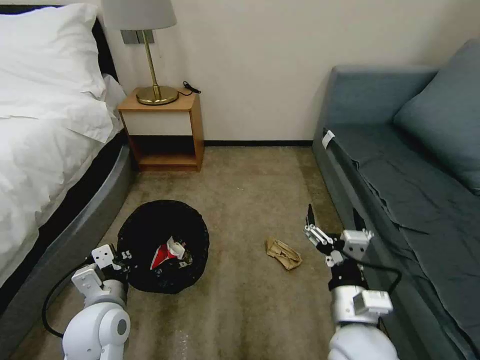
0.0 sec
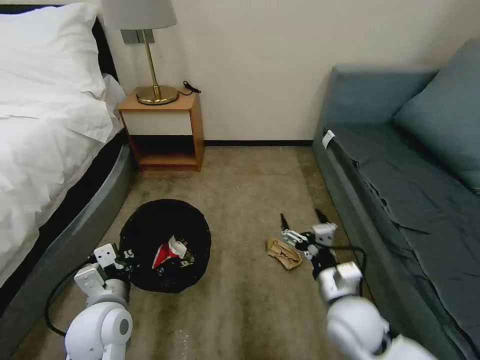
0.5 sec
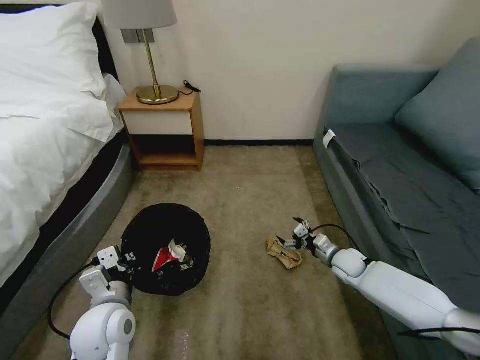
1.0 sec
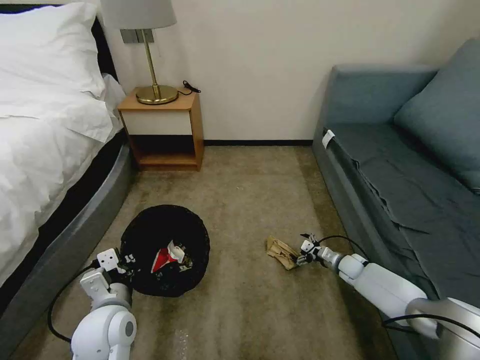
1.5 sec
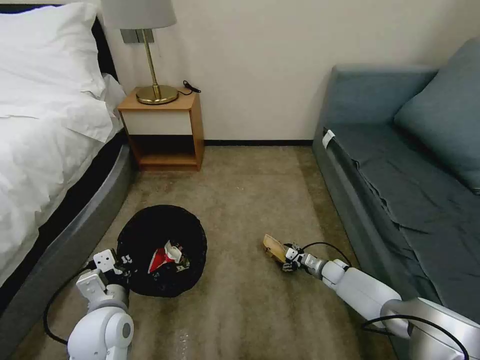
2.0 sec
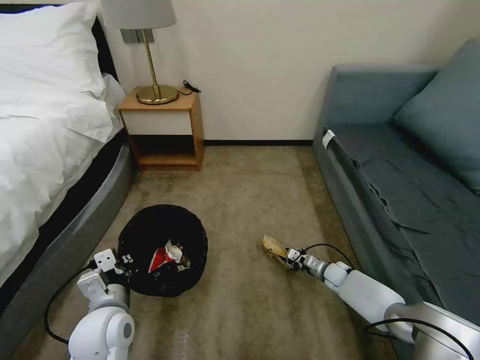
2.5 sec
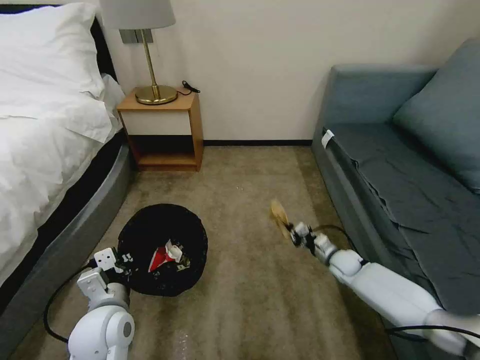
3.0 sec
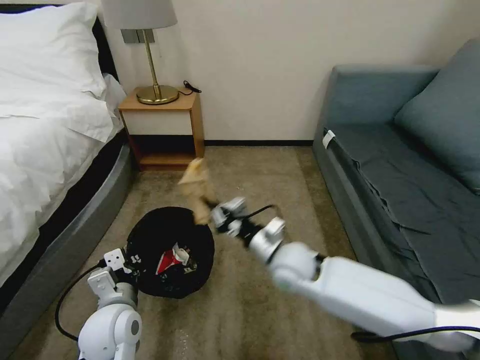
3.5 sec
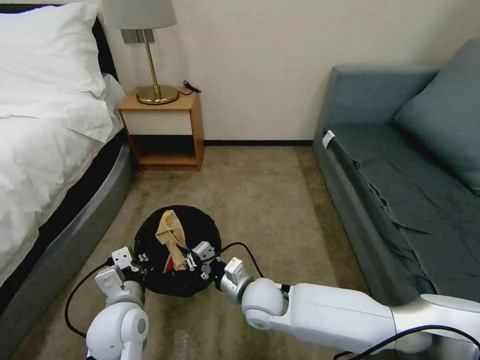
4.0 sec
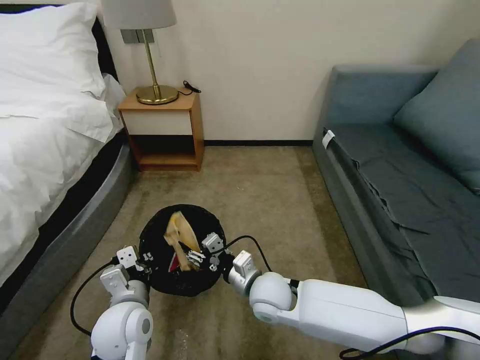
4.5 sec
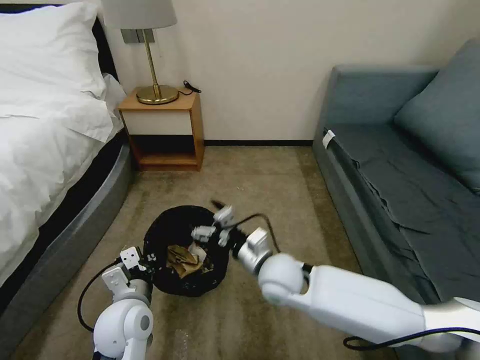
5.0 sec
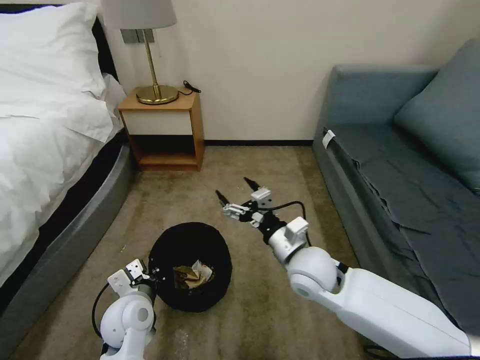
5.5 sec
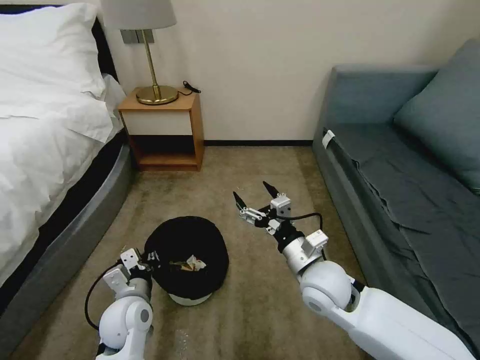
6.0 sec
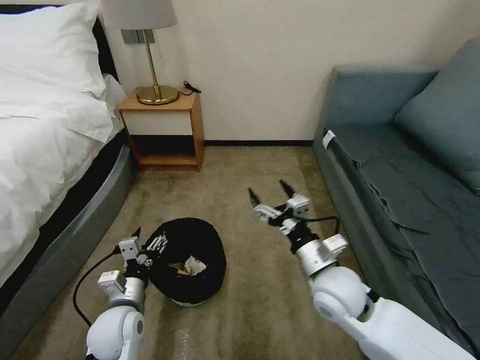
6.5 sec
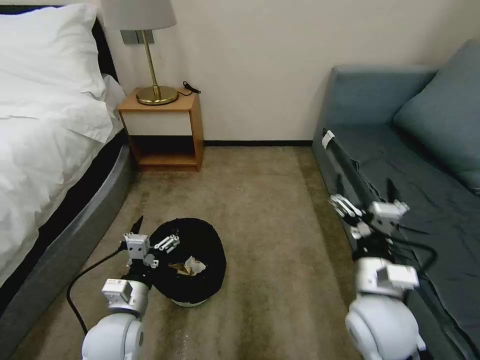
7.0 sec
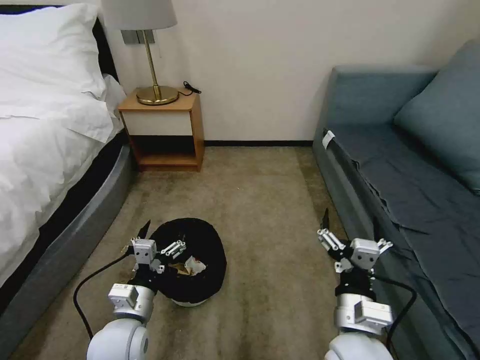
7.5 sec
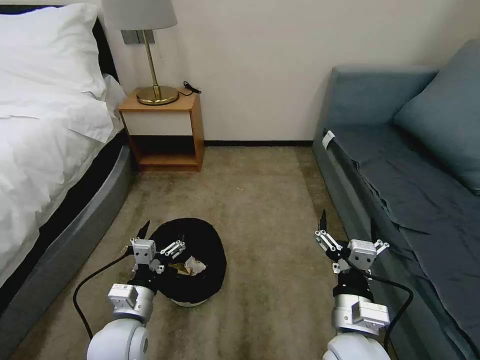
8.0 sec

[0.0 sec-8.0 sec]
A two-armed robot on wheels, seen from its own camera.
Task of the whole recording: Pick up the trash bin, then pick up the garbage on the floor and place it into the trash bin.
0.0 sec to 2.0 sec: The right gripper goes roughly 40 cm downward, forward and to the right.
2.0 sec to 4.0 sec: The right gripper travels to the left, upward and backward by roughly 40 cm, and closes up.
4.0 sec to 6.0 sec: The left gripper moves roughly 5 cm. Meanwhile the right gripper goes about 15 cm to the right and upward, and opens up.
6.0 sec to 8.0 sec: The right gripper moves backward, roughly 15 cm; the left gripper shifts by about 5 cm, and opens its fingers.
